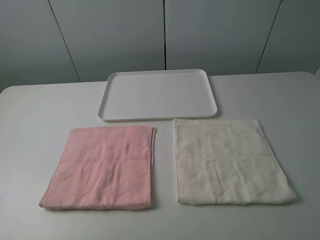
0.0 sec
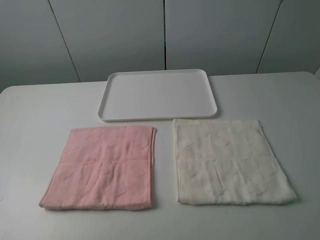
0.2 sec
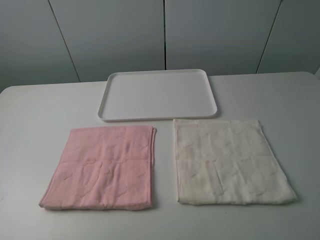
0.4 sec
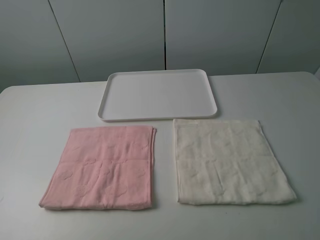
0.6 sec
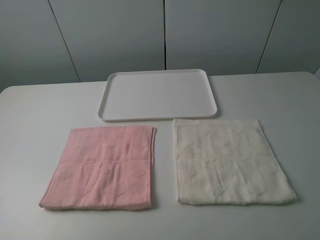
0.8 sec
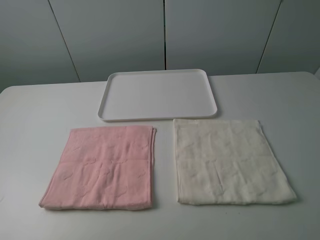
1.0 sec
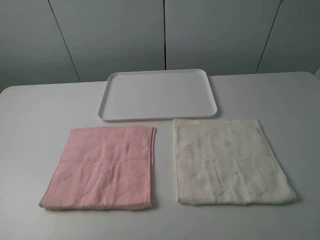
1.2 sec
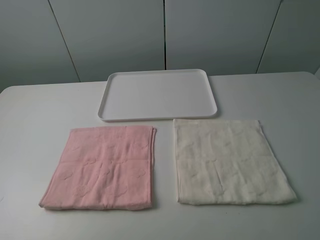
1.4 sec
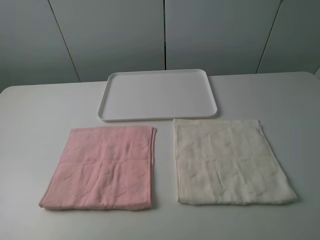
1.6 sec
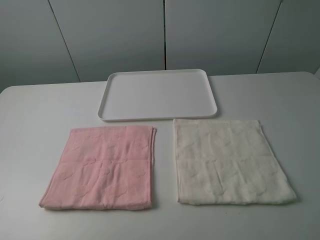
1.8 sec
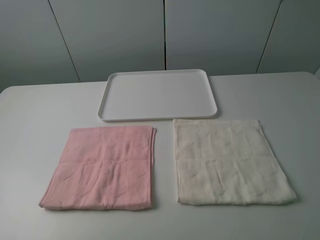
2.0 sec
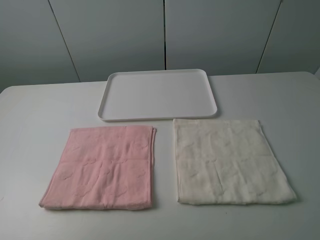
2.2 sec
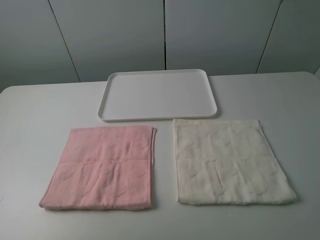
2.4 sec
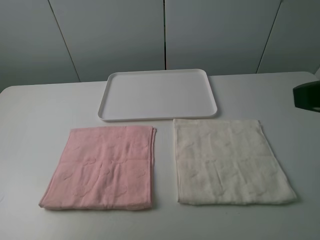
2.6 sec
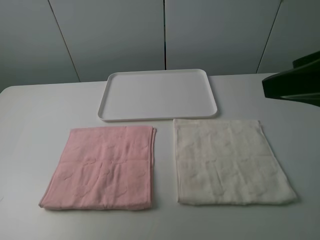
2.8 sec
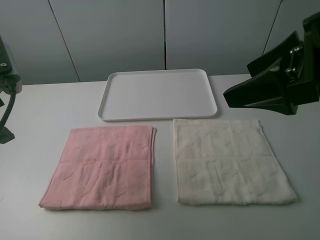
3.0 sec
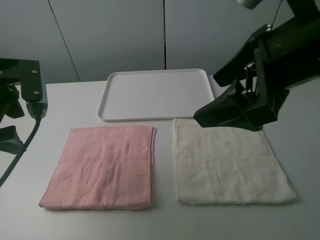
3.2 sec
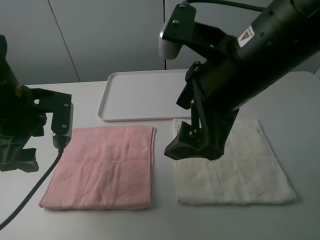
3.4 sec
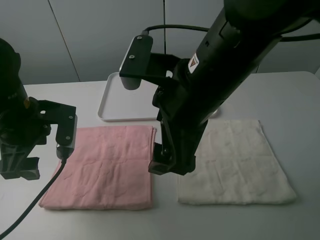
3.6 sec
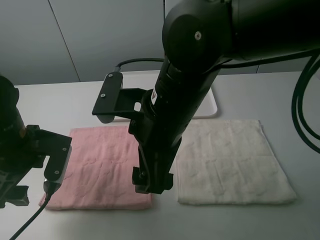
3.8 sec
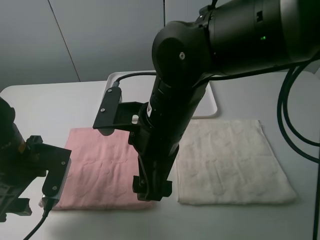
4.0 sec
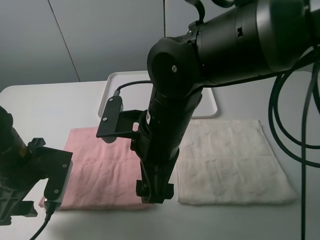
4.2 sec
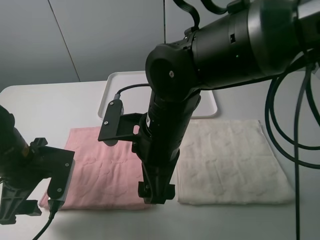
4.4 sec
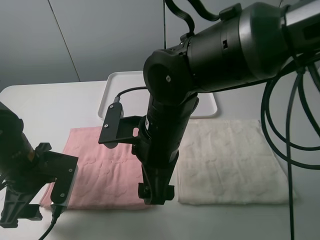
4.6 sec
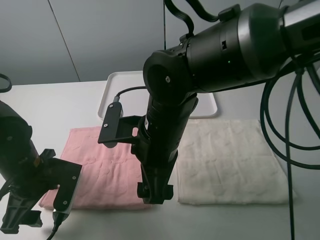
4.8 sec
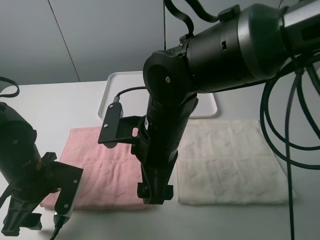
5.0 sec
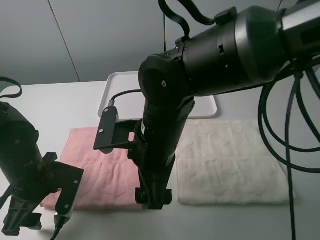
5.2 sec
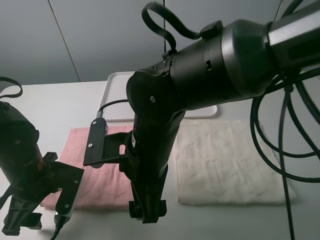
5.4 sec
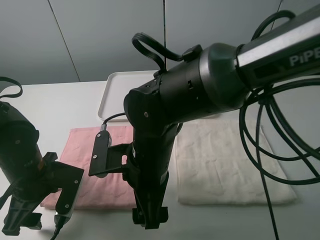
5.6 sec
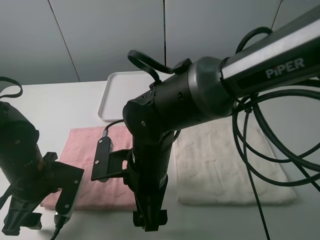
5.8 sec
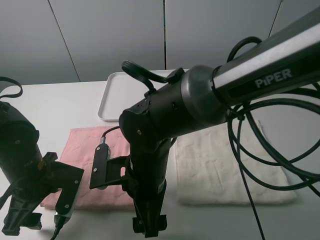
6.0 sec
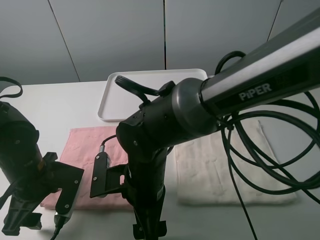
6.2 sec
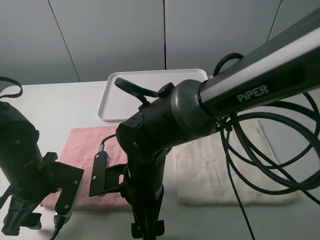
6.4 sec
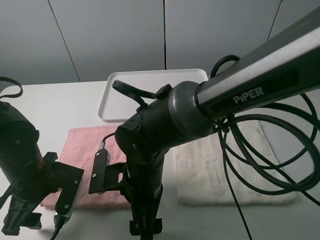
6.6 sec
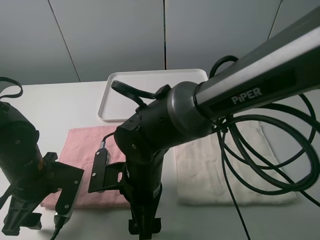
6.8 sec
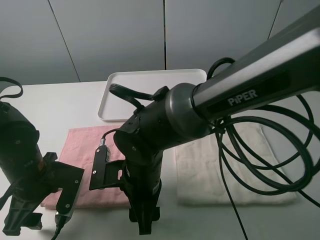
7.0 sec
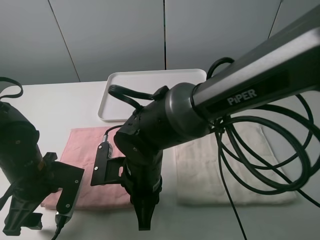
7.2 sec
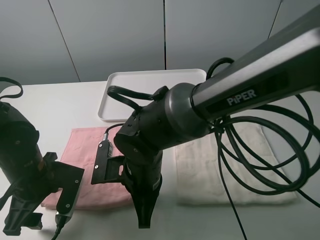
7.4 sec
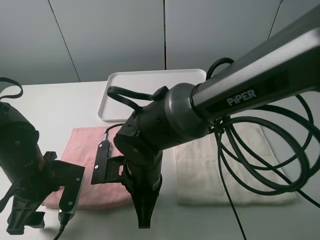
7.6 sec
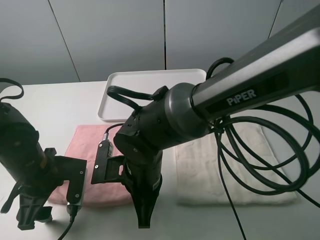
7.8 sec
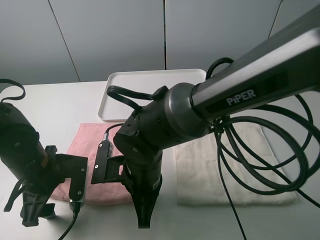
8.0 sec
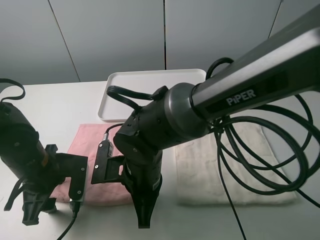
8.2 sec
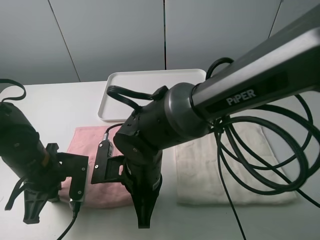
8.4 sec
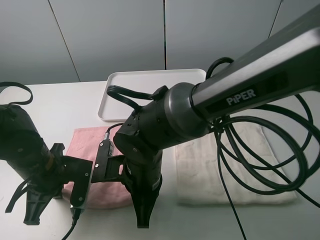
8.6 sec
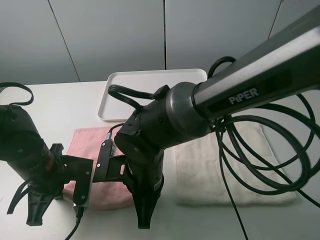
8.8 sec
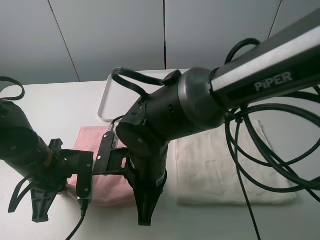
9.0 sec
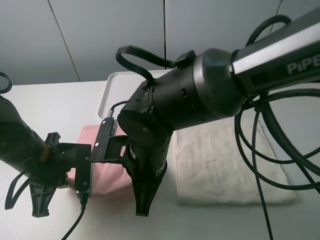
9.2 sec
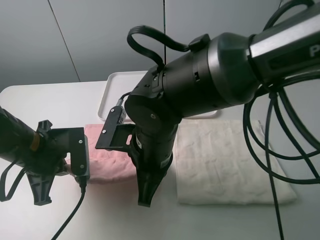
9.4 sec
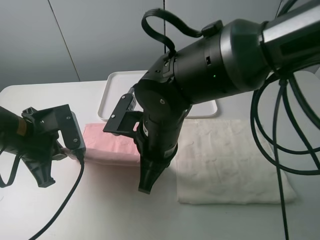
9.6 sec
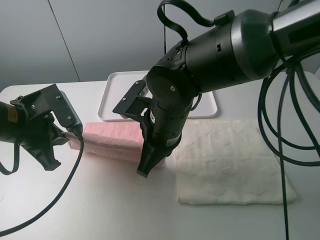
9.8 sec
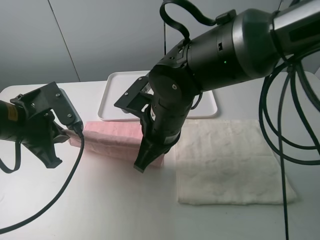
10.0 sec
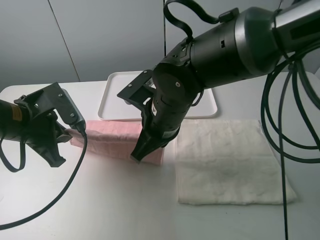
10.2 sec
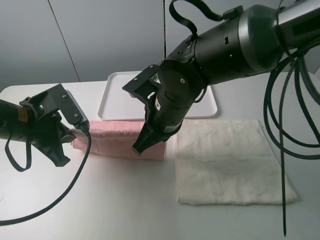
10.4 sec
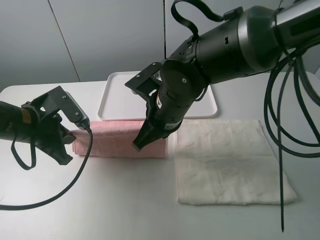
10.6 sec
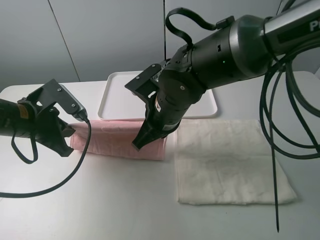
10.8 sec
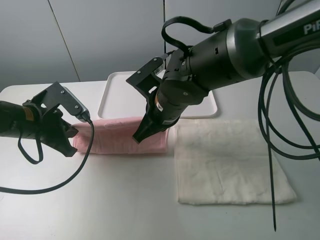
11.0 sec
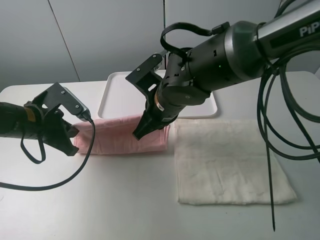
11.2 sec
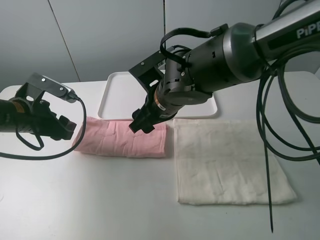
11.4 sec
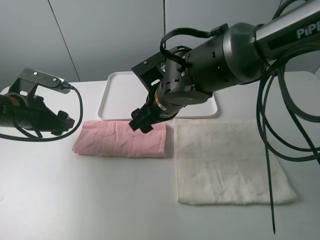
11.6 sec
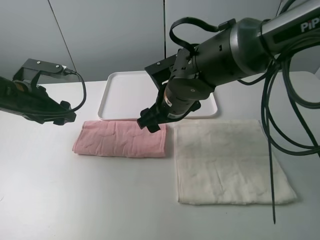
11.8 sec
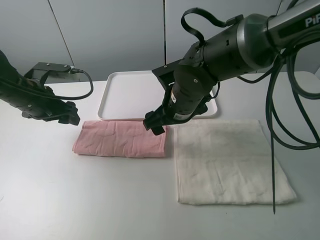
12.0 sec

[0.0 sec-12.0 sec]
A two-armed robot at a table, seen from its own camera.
Task of the whole recording: fold one of the towels by two grippers and place it on the tray,then fold another towel by two grippers and place it on the folded towel.
Step, 0.0 sec to 8.4 sec: Grasp the pink towel with the left gripper.
Step, 8.6 sec to 11.6 sec: Fold the pink towel upwards with the left gripper.
0.0 sec to 1.6 sec: The two grippers keep their place.
1.6 sec to 3.0 sec: The right gripper goes approximately 20 cm forward and to the left. The left gripper goes some 20 cm forward.
3.0 sec to 4.4 sec: The left gripper heads downward, covering roughly 15 cm; the right gripper moves to the left and downward, approximately 25 cm.
4.4 sec to 6.0 sec: The right gripper is displaced downward by roughly 5 cm.
6.0 sec to 7.6 sec: The right gripper closes its fingers.
7.6 sec to 9.0 sec: The left gripper closes its fingers.
9.0 sec to 10.4 sec: The right gripper is displaced forward by about 5 cm, while the left gripper goes about 5 cm upward.
10.4 sec to 12.0 sec: The left gripper moves forward, approximately 10 cm, and opens up; the right gripper shifts by some 5 cm, and opens.

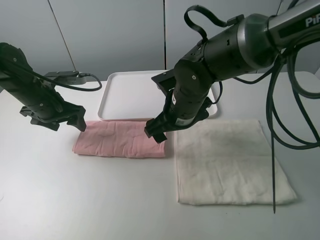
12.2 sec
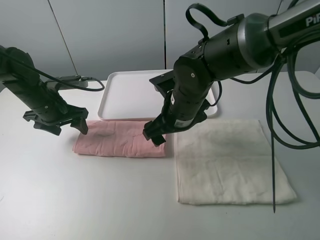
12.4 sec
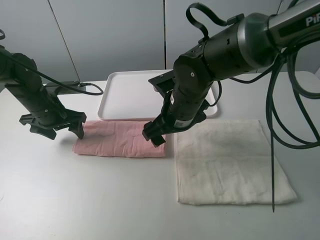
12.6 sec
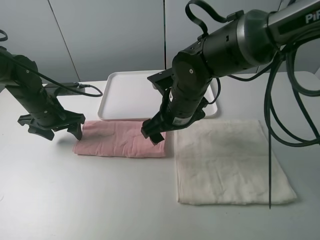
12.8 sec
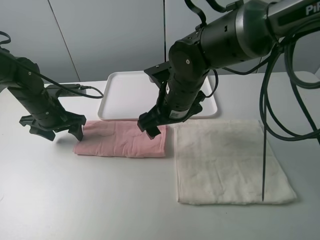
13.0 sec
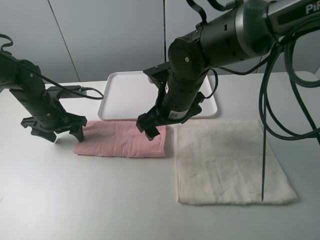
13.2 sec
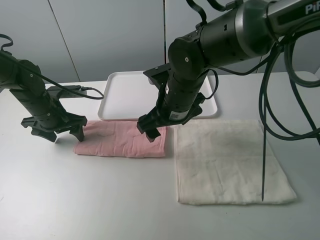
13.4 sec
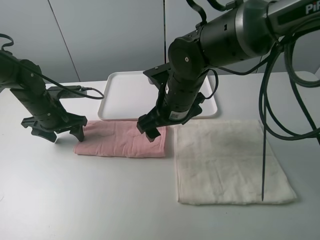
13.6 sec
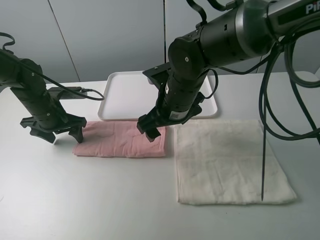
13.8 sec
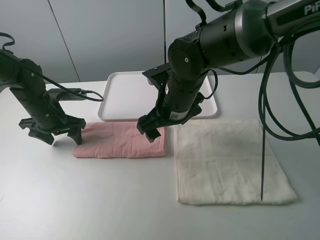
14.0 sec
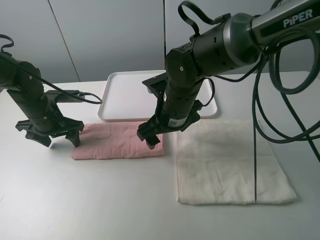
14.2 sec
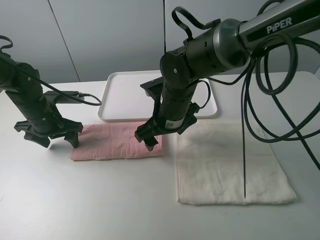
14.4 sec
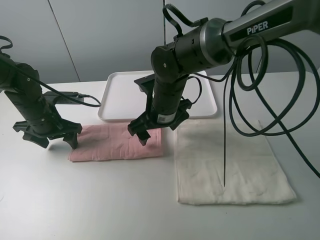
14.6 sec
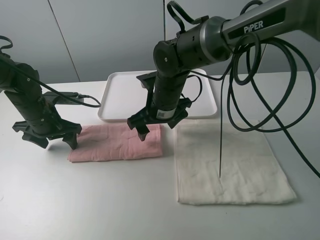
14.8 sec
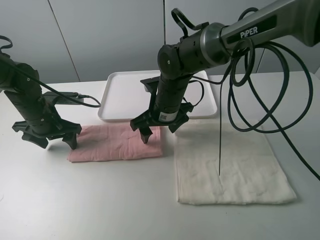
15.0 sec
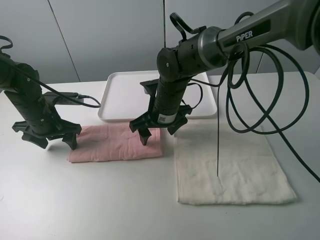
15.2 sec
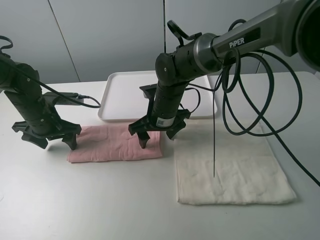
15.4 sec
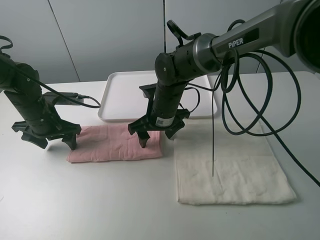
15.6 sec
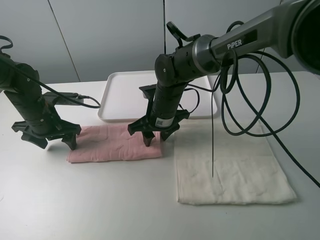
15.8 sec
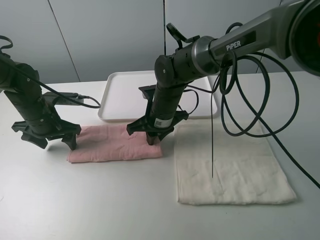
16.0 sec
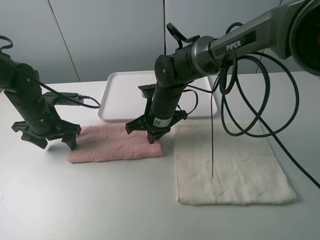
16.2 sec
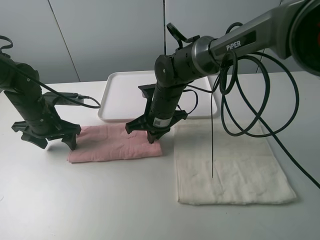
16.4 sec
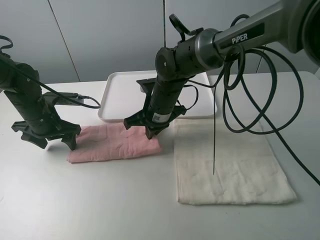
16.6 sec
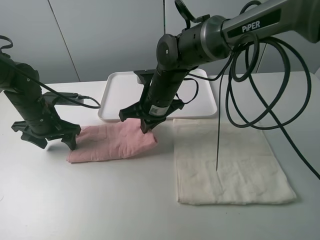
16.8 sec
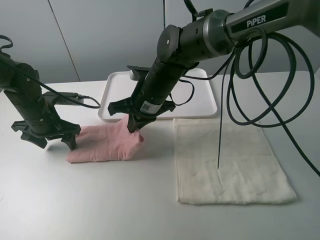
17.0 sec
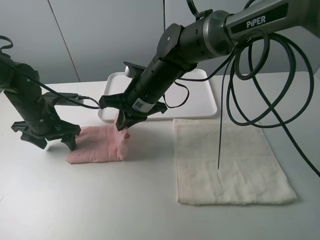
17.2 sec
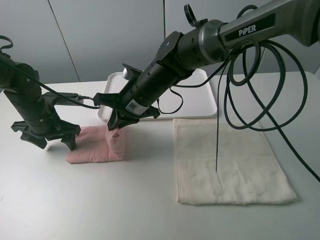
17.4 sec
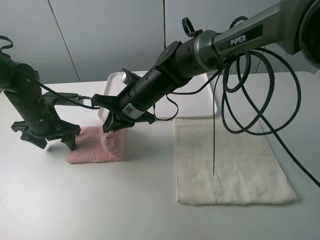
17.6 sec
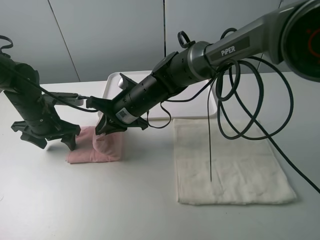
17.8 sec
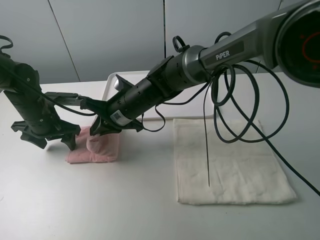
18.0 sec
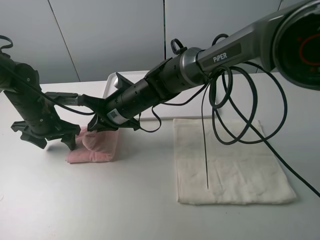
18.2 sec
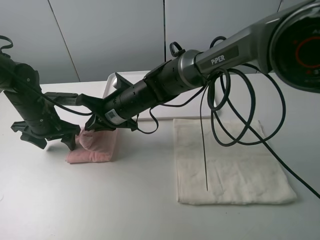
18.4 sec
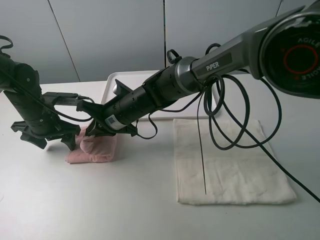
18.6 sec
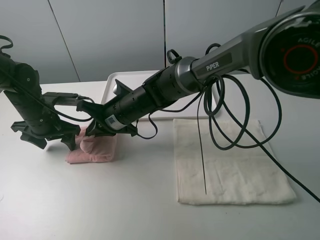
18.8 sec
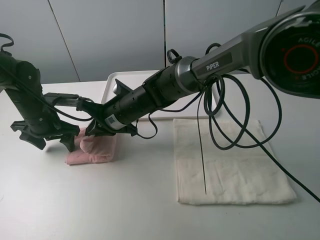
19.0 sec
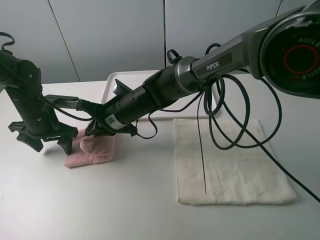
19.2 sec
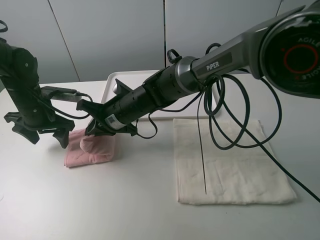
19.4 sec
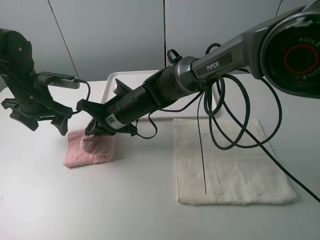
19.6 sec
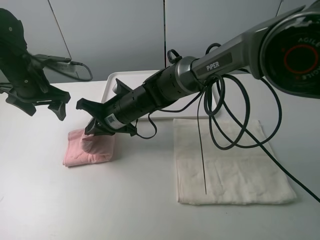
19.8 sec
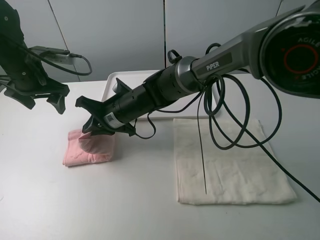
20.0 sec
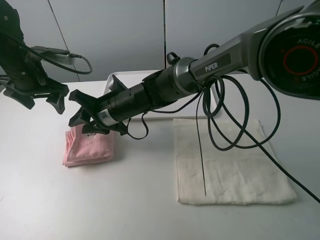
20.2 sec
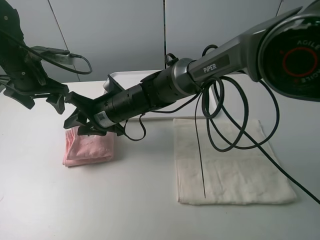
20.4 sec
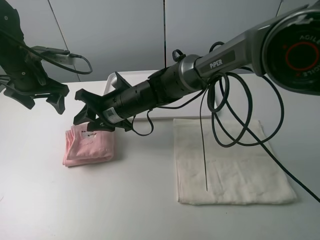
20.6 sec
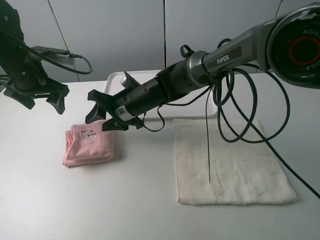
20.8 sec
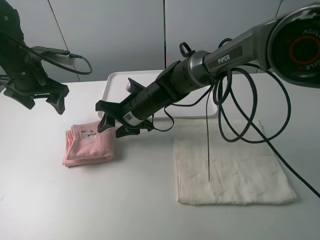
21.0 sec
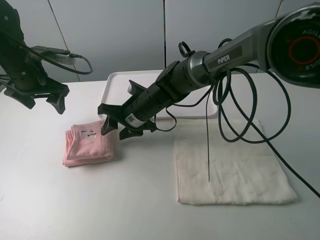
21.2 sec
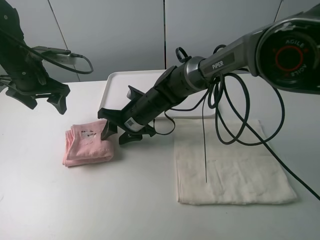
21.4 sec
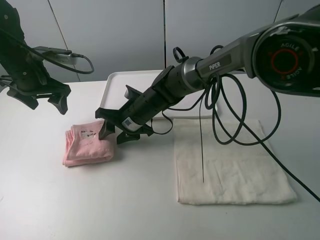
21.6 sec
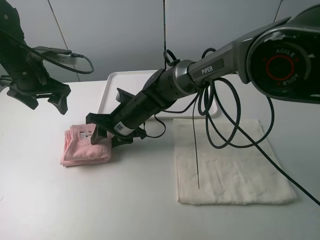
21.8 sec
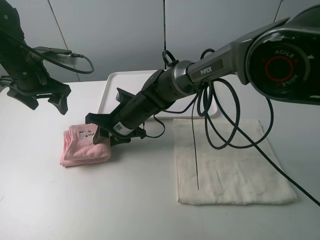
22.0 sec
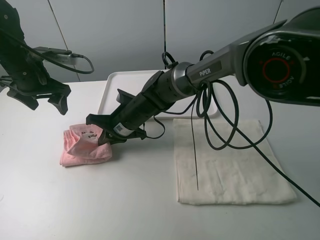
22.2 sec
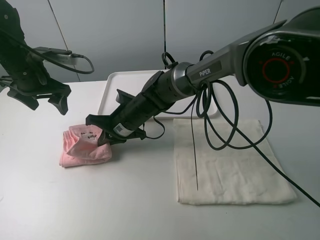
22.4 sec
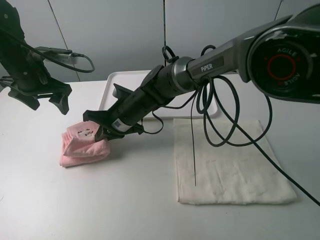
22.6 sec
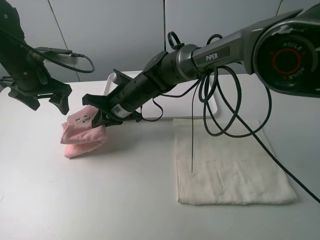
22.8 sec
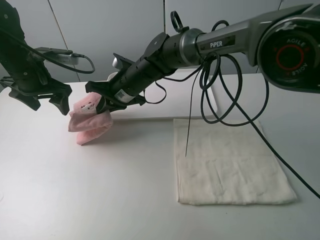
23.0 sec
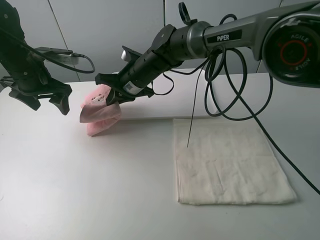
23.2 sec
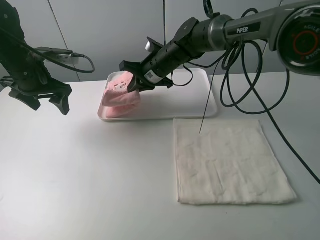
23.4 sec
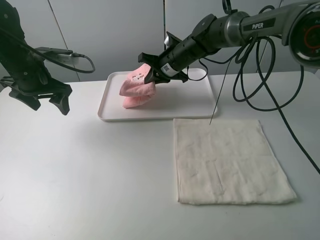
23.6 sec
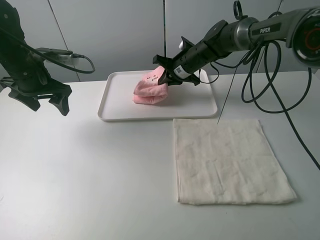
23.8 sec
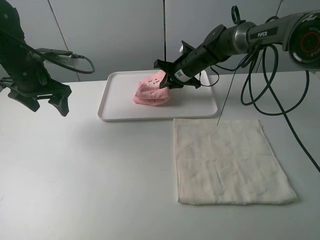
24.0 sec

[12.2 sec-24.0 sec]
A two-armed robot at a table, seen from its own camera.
Task of the whole recording: fold one of the towels by two grippers and place it on the tray,then fold another towel by two grippers and place it on the folded towel.
Step, 12.2 sec to 14.4 sec: Press the pink towel with the left gripper.
Step, 14.6 sec to 16.4 sec: Grasp the pink towel with the right gripper.
Step, 16.6 sec to 20.0 sec: Fold the pink towel from right to left with right gripper.
Step, 20.2 sec to 22.2 sec: Grasp the pink towel with the right gripper.
12.2 sec to 13.6 sec: The grippers make only small movements.
13.6 sec to 15.2 sec: The right gripper heads downward, covering some 5 cm.
15.2 sec to 16.6 sec: The right gripper closes its fingers.
16.6 sec to 18.2 sec: The right gripper travels to the left by some 5 cm.
18.2 sec to 19.6 sec: The left gripper travels upward by some 5 cm.
19.6 sec to 21.0 sec: The right gripper opens up.
21.0 sec to 22.6 sec: The right gripper closes.
22.6 sec to 24.0 sec: The right gripper shifts about 20 cm to the right and forward.
